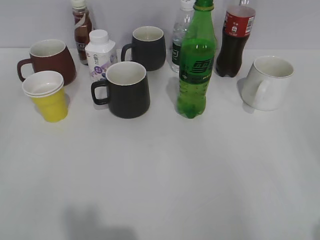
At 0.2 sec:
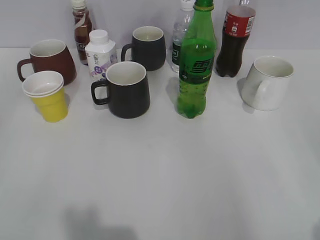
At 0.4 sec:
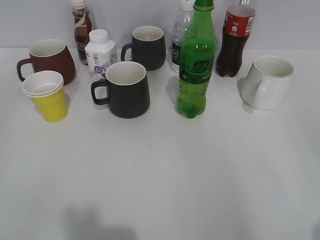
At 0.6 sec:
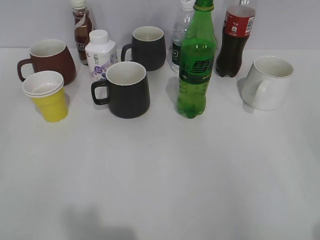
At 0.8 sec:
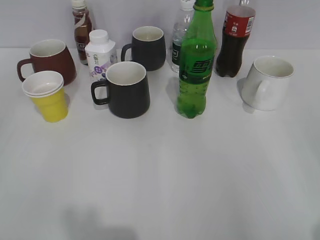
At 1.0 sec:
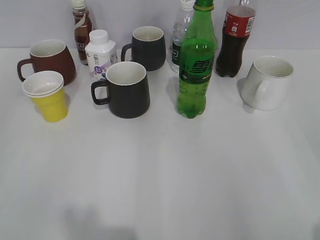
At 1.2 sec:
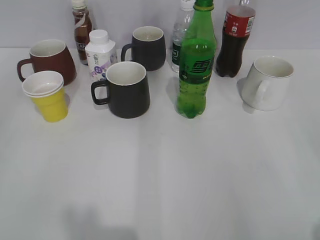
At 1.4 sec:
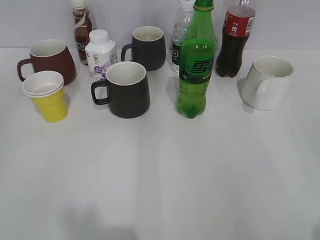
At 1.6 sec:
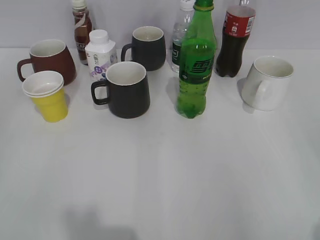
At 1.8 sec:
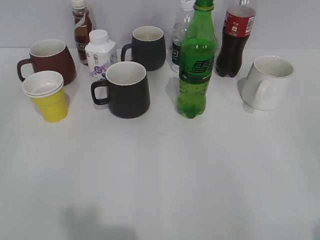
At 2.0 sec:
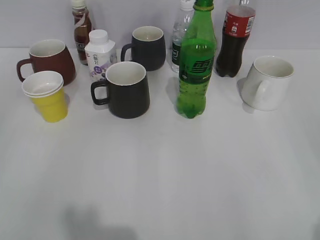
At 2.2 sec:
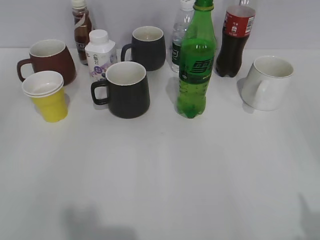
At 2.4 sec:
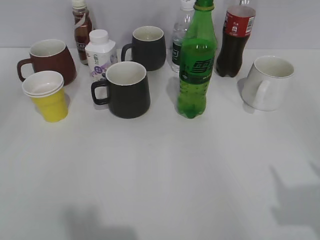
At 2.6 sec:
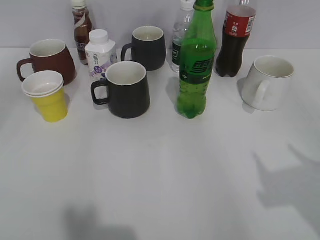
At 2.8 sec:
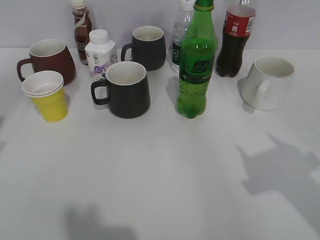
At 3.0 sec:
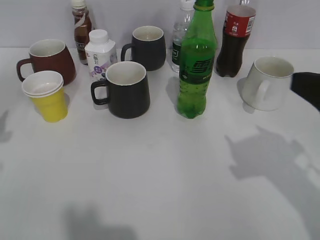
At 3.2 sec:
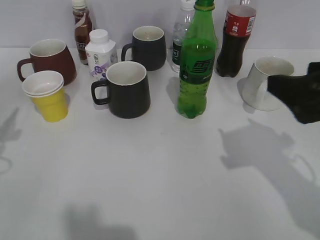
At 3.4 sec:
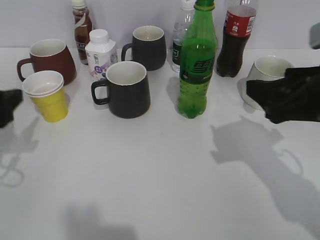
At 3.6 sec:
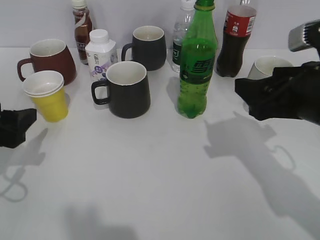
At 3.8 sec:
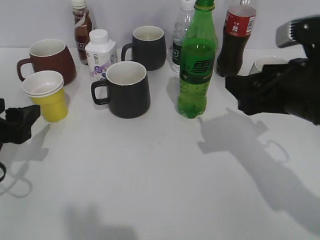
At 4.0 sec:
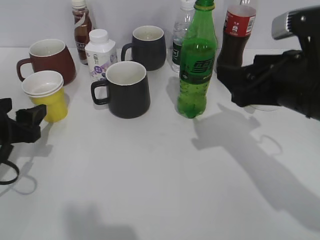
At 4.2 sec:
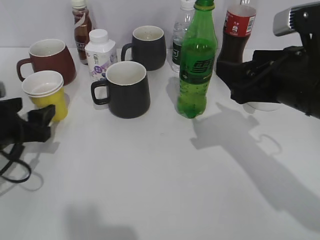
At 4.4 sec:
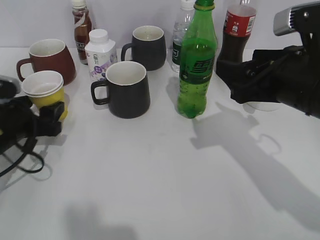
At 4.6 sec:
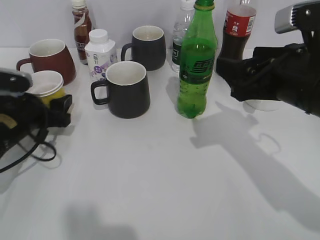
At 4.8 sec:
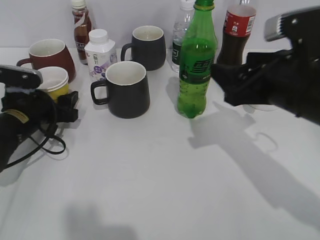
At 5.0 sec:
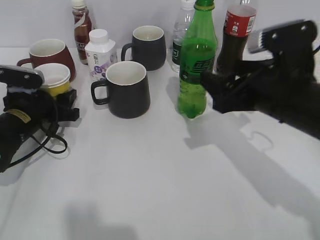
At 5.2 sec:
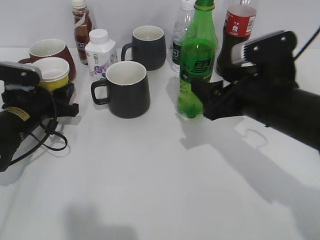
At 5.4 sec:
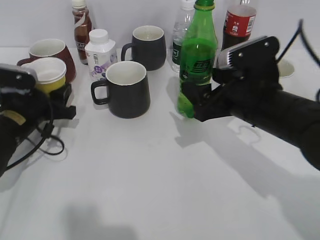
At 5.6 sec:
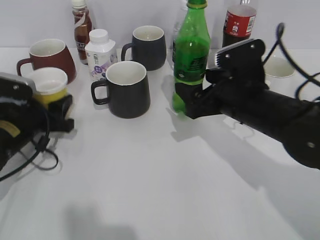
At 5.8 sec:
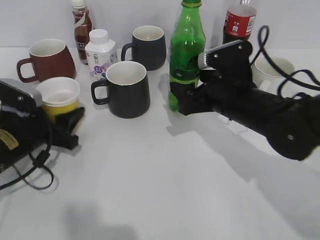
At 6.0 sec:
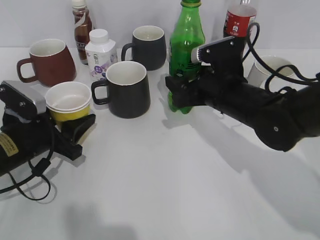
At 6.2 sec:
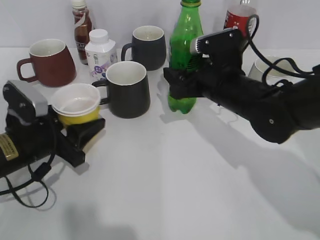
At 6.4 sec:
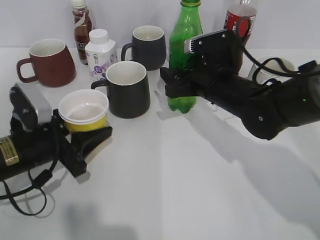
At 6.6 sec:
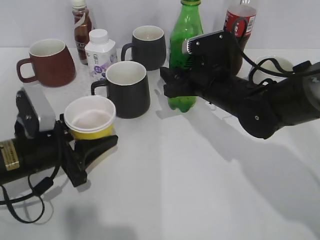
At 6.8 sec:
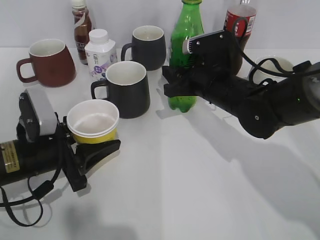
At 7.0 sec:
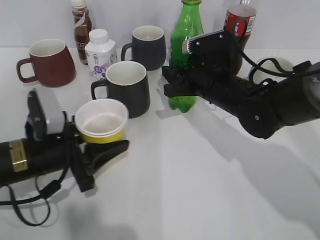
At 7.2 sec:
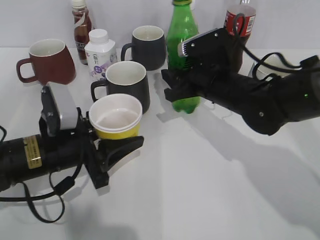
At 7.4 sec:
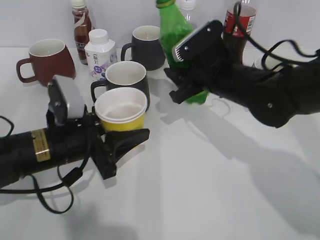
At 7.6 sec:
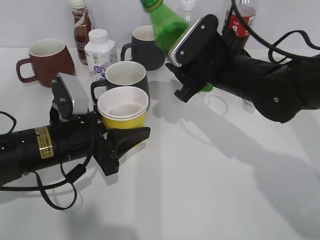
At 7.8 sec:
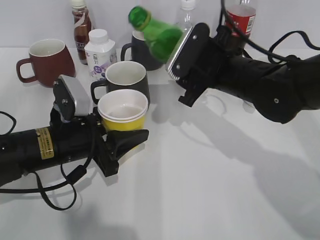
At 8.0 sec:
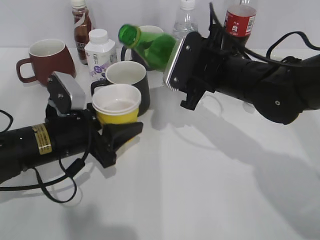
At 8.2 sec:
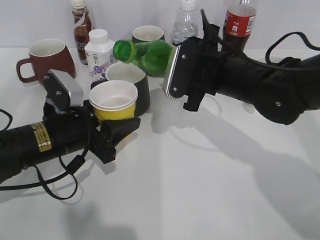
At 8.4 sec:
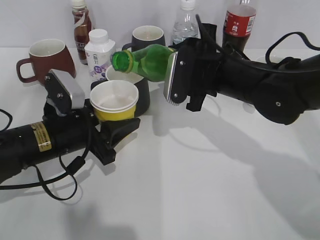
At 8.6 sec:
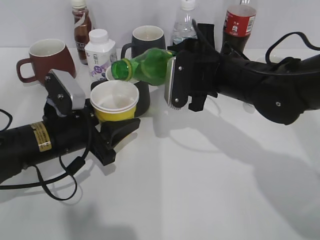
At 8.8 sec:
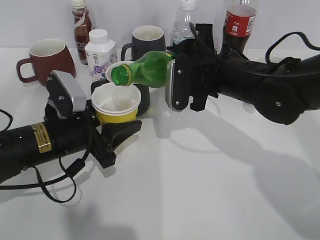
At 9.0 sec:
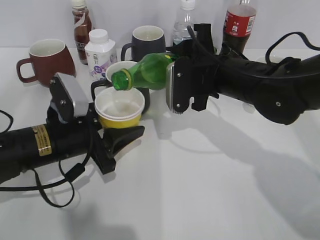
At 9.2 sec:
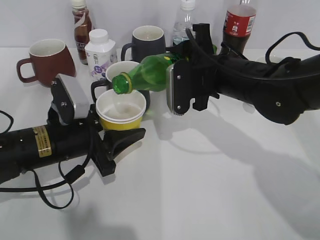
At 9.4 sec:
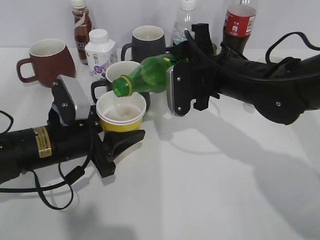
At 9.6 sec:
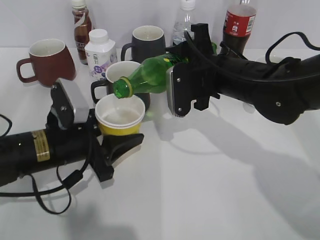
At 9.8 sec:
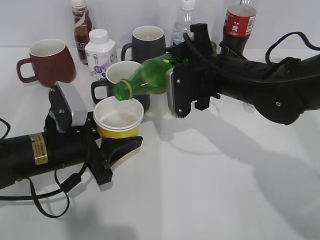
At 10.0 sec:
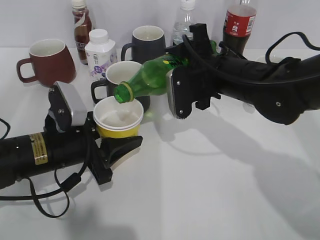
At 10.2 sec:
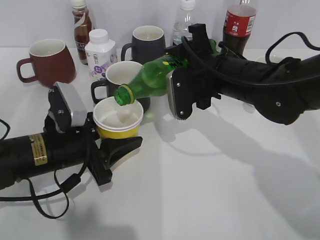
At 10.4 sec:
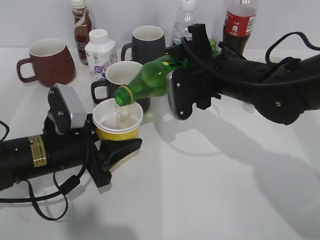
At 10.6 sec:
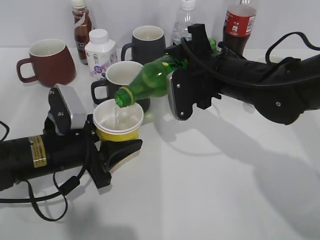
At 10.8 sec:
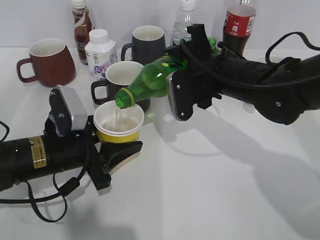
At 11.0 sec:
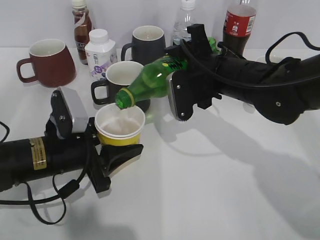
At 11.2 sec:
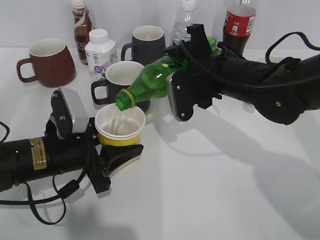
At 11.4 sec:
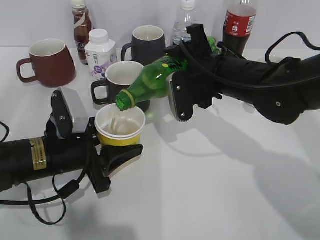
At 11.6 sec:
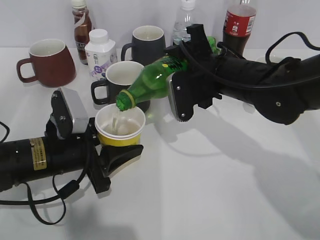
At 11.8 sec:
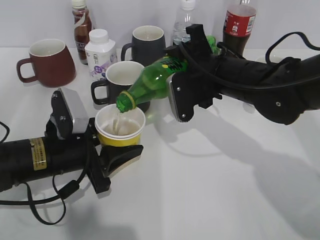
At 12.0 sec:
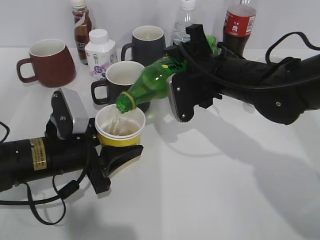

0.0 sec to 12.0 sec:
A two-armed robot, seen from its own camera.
Step, 2.2 sec to 6.8 sec: Grasp the bottle with sprite with right gripper.
1.6 sec to 3.0 sec: Both grippers travel together forward, about 20 cm. The left gripper opens up.
3.0 sec to 4.4 sec: The right gripper is displaced forward and to the left by roughly 10 cm; the left gripper is displaced downward, to the right and forward by about 15 cm.
4.4 sec to 6.0 sec: The left gripper closes its fingers; the right gripper goes about 15 cm downward, forward and to the left.
6.0 sec to 7.6 sec: The left gripper goes roughly 5 cm to the right. The right gripper closes up.
9.0 sec to 10.4 sec: There are only small adjustments of the grippers.
10.4 sec to 12.0 sec: Both grippers stay put.

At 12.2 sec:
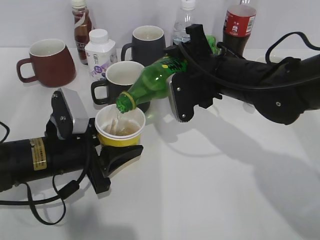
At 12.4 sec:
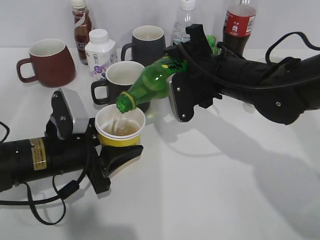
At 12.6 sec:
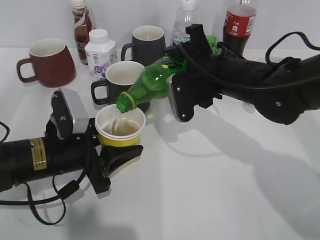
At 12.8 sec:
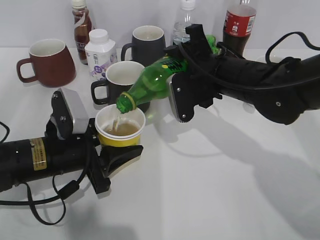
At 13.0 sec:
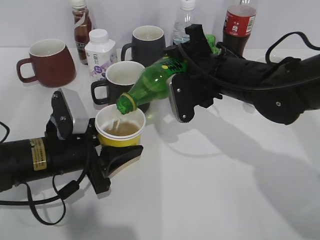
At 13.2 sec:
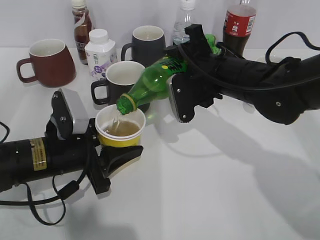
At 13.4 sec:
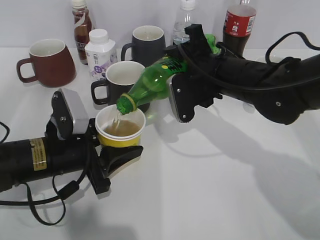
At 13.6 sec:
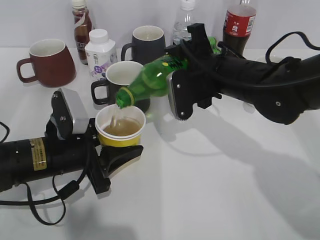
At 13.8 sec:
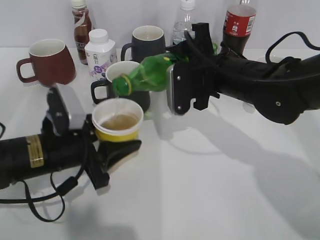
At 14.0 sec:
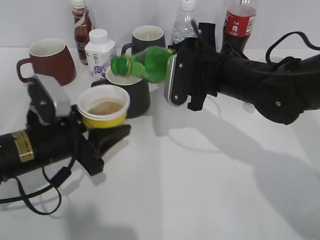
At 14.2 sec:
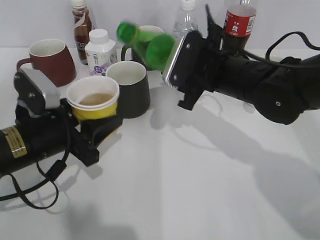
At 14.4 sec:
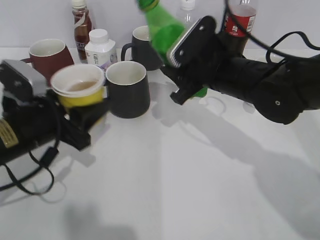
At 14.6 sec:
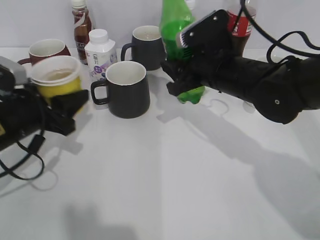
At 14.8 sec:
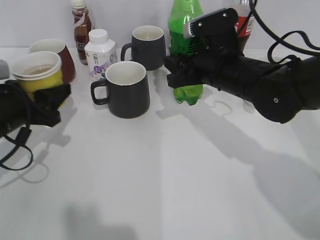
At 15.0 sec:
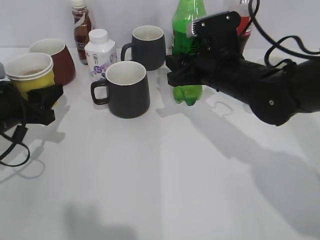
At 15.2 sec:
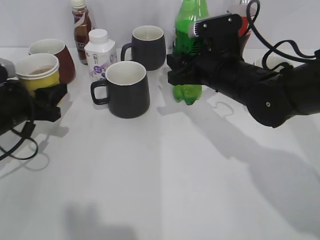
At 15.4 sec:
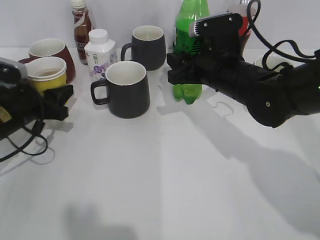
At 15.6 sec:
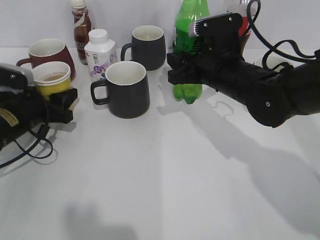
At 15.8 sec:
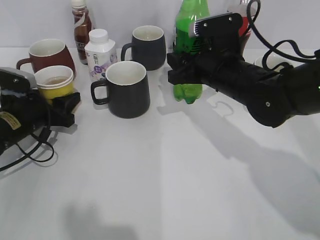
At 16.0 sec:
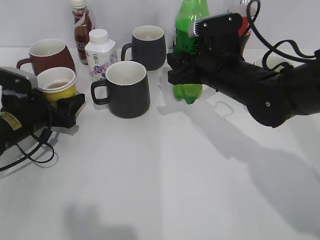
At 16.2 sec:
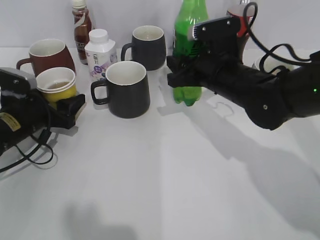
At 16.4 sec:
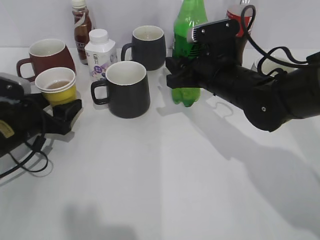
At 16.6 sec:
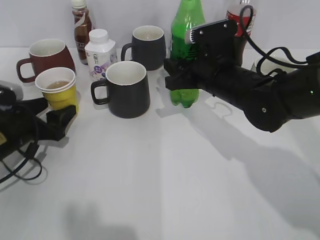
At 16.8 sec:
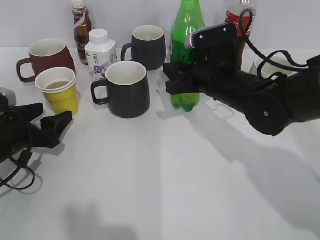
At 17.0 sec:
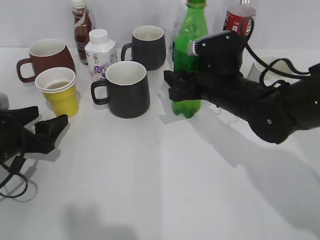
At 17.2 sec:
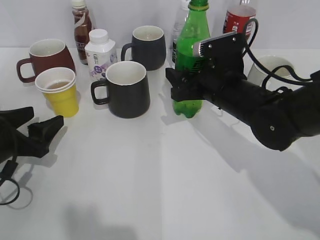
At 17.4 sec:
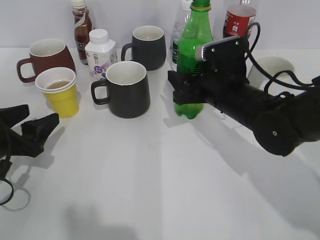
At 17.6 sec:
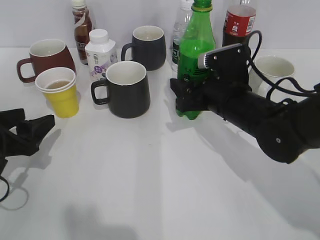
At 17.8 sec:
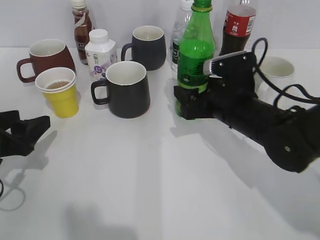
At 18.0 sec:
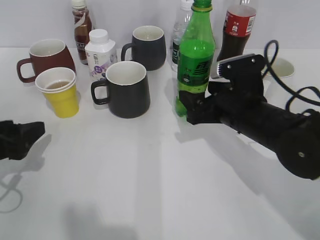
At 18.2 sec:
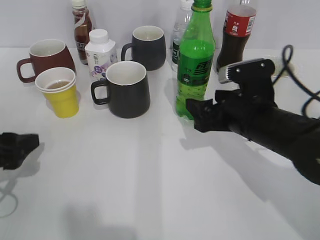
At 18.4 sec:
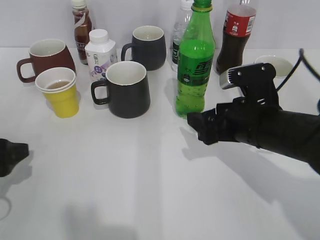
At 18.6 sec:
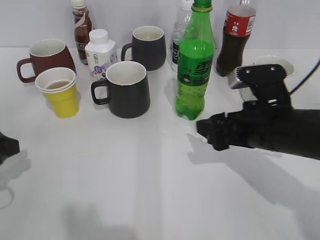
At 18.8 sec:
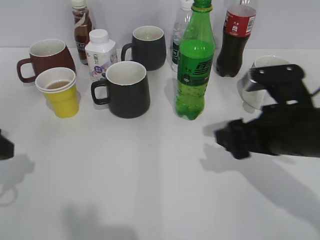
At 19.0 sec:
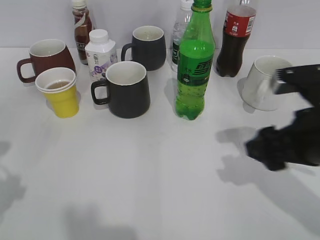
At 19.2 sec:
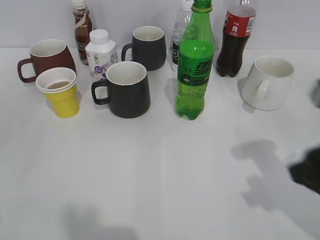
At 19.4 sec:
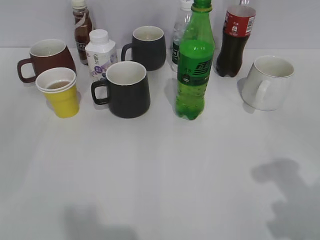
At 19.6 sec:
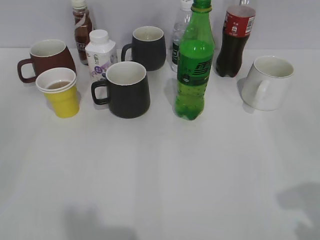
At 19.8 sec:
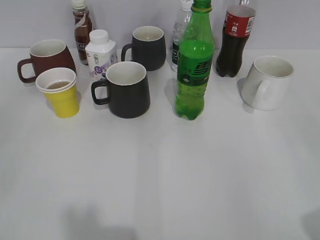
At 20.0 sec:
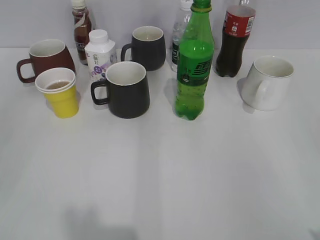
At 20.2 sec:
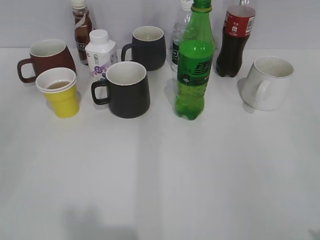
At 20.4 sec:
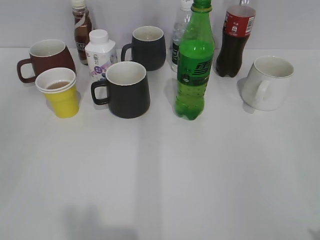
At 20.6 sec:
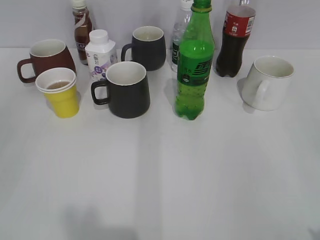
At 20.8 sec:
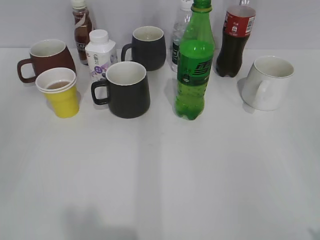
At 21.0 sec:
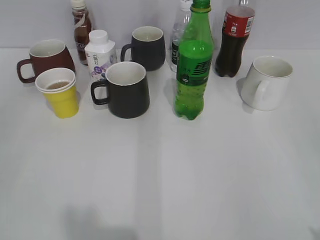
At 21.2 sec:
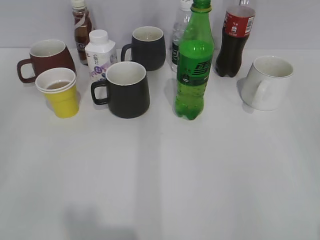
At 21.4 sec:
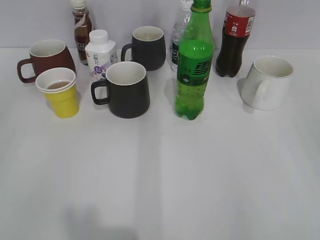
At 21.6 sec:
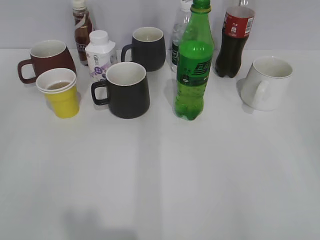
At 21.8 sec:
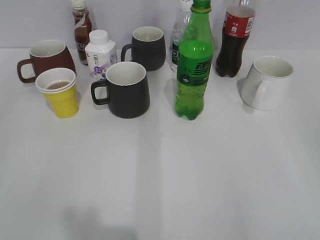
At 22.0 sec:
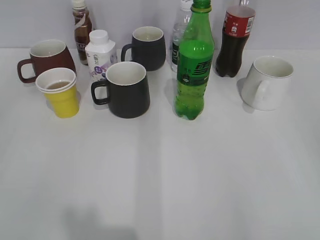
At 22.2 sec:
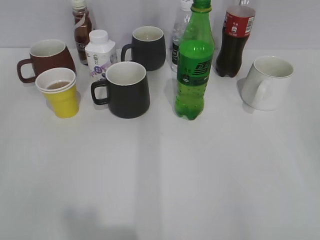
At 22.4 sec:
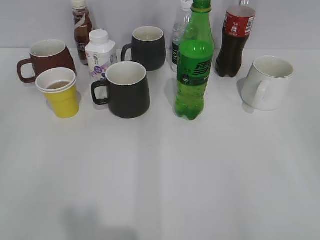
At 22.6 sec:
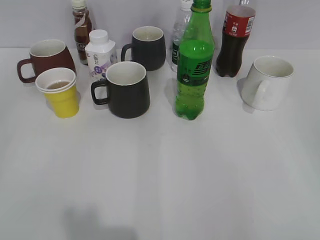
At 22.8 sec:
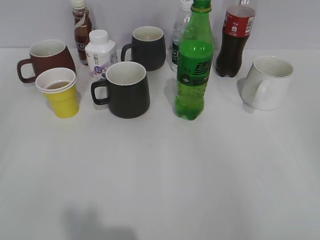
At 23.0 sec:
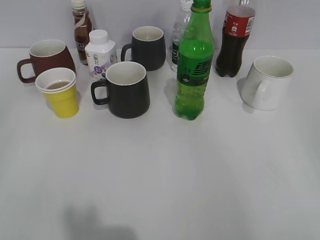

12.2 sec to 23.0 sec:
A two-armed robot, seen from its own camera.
Step, 14.2 sec to 15.8 sec: Place the yellow paper cup on the table with left gripper.
Step, 16.0 sec to 18.4 sec: Place the sprite bottle on the table with right gripper.
12.2 sec to 13.8 sec: The grippers stay close to where they were, moving slightly.
13.8 sec to 15.2 sec: The left gripper travels to the left and forward by some 10 cm.
15.2 sec to 16.8 sec: The left gripper opens.
16.8 sec to 18.4 sec: The two grippers go roughly 10 cm backward. The right gripper opens its fingers.
18.4 sec to 20.0 sec: The left gripper is displaced backward and upward by approximately 20 cm; the right gripper heads backward, to the right and upward, covering some 30 cm, and closes up.
21.4 sec to 23.0 sec: Both grippers stay put.
